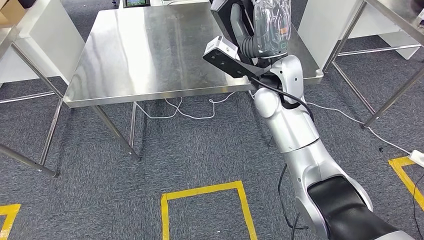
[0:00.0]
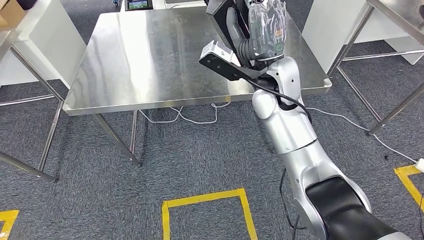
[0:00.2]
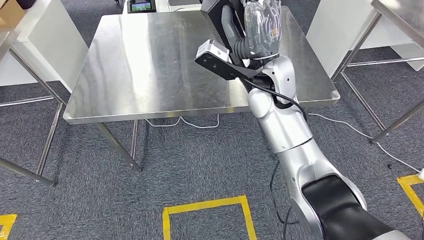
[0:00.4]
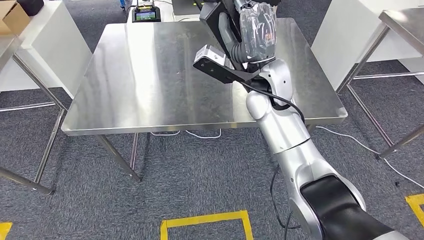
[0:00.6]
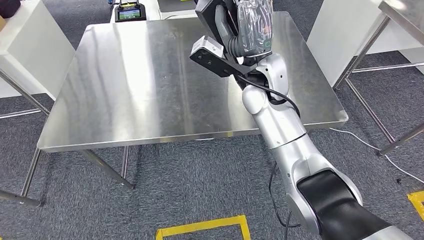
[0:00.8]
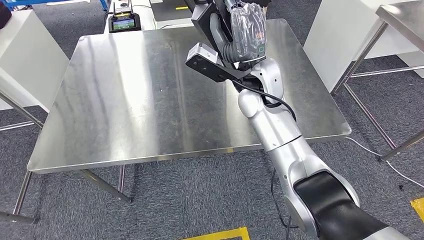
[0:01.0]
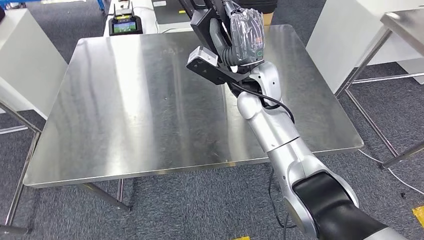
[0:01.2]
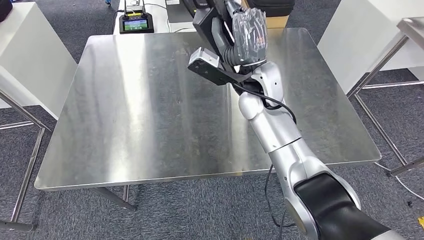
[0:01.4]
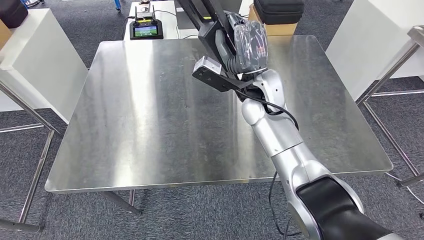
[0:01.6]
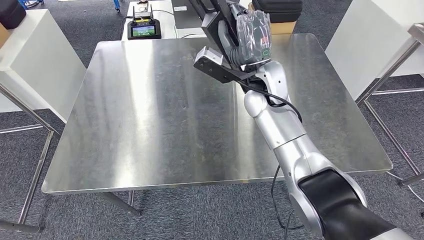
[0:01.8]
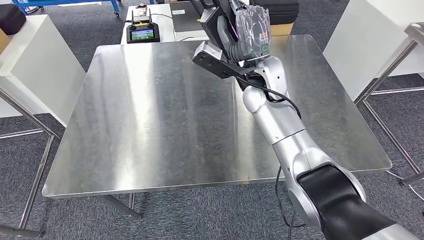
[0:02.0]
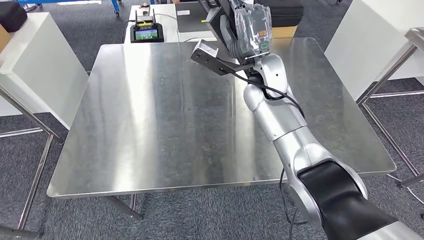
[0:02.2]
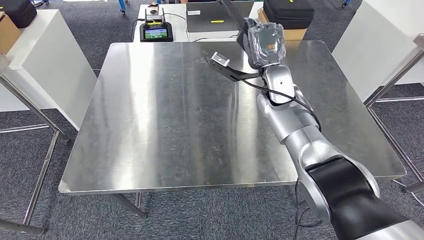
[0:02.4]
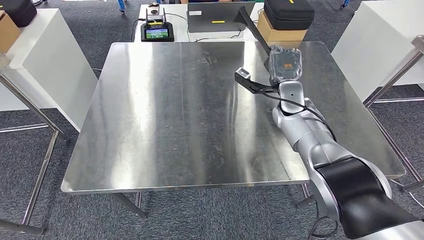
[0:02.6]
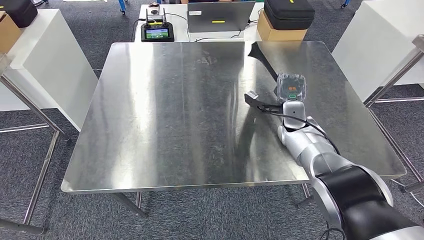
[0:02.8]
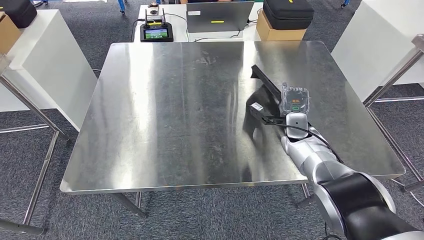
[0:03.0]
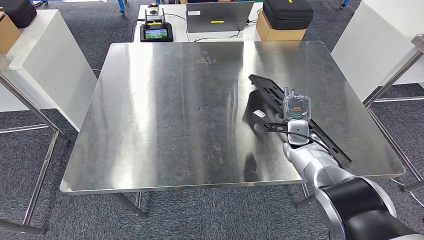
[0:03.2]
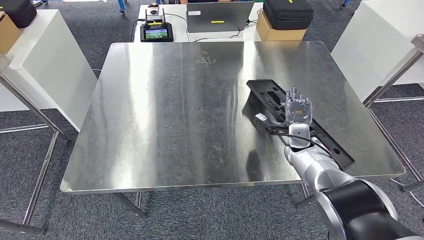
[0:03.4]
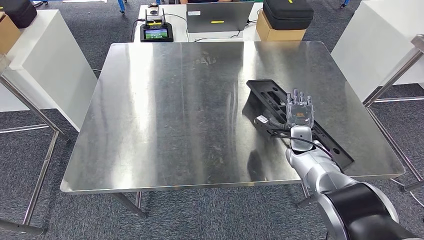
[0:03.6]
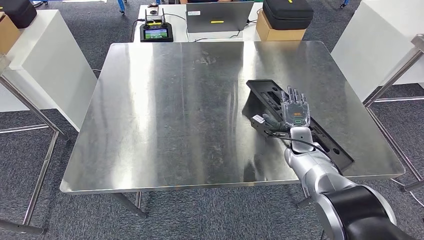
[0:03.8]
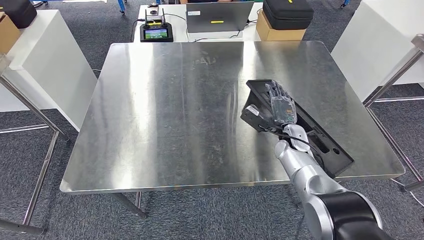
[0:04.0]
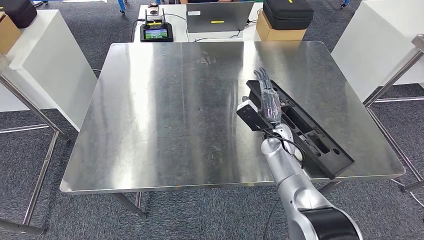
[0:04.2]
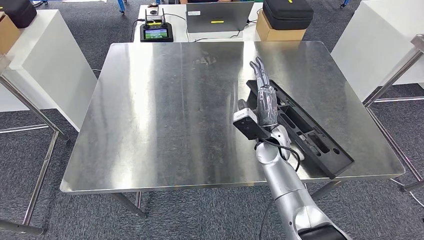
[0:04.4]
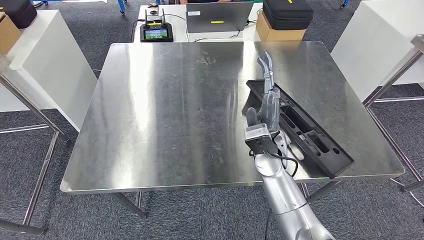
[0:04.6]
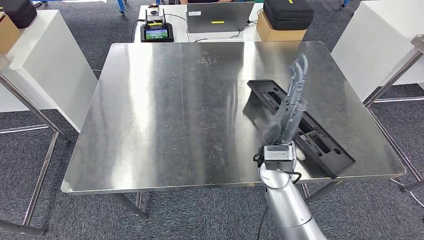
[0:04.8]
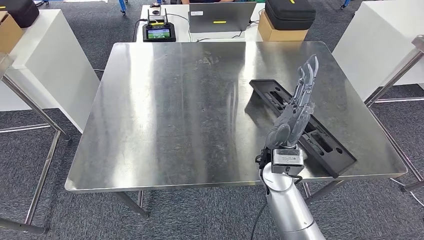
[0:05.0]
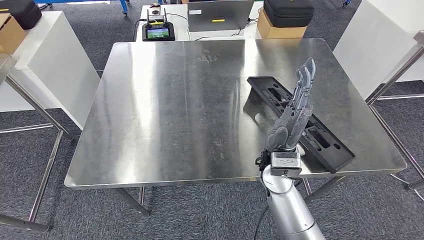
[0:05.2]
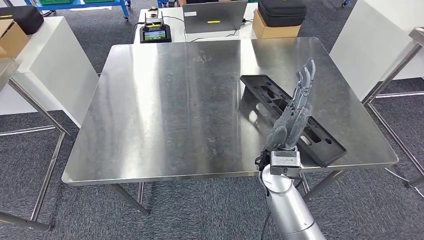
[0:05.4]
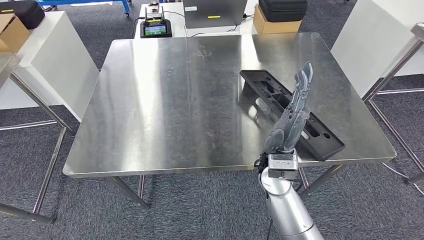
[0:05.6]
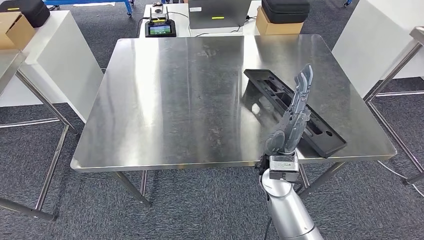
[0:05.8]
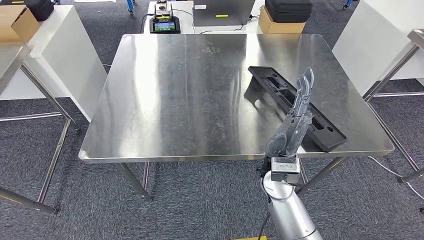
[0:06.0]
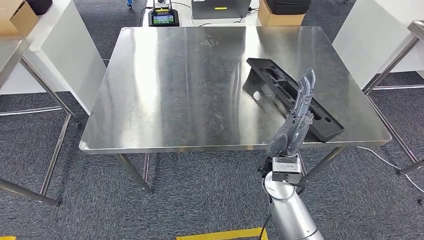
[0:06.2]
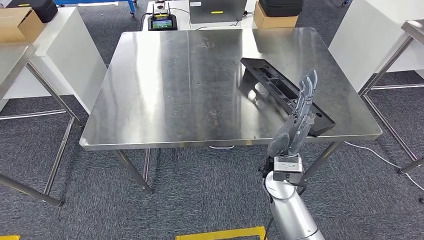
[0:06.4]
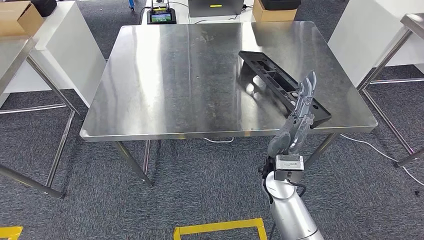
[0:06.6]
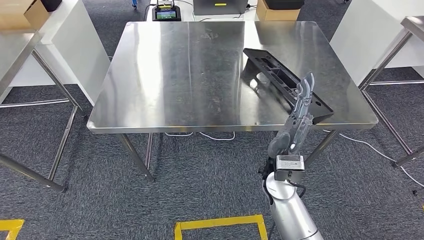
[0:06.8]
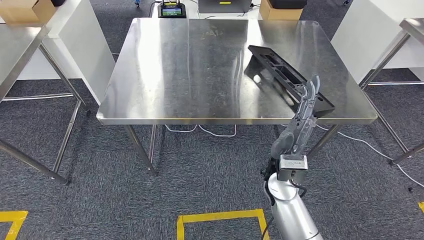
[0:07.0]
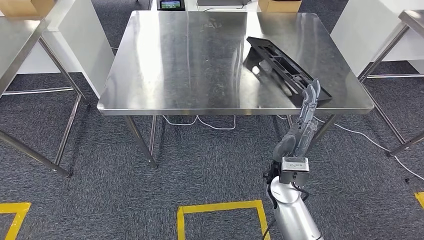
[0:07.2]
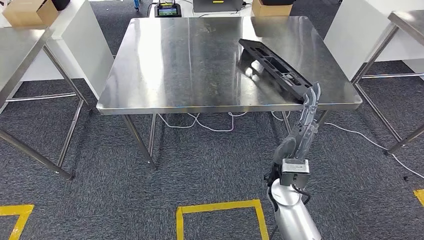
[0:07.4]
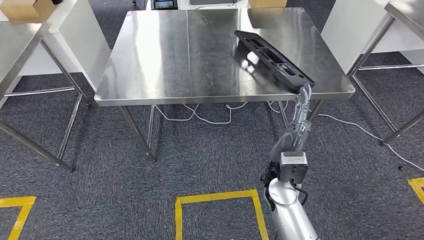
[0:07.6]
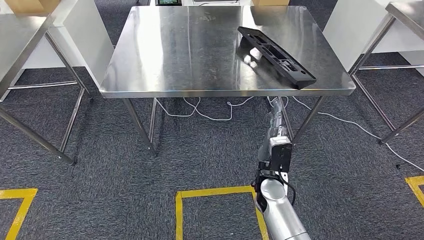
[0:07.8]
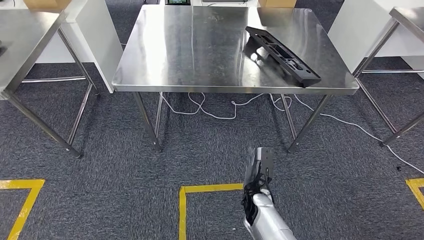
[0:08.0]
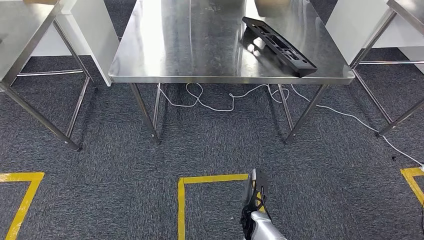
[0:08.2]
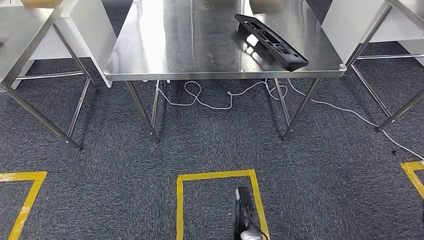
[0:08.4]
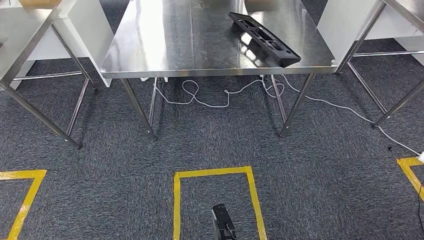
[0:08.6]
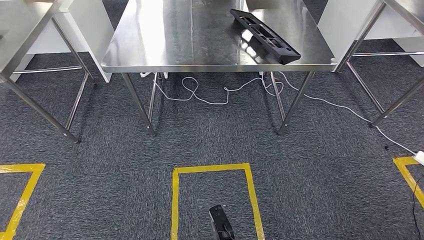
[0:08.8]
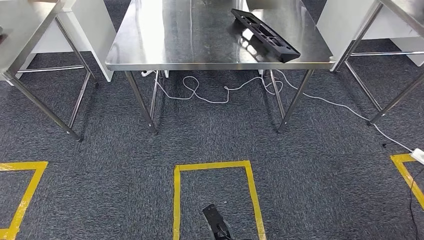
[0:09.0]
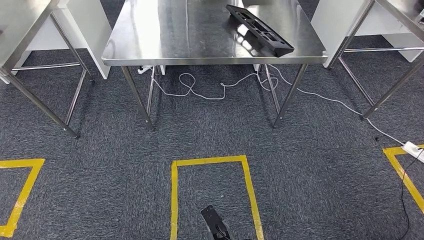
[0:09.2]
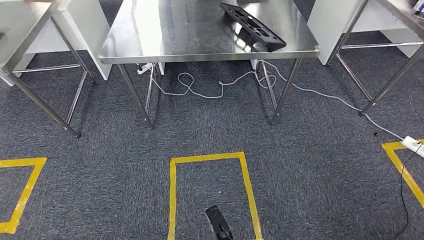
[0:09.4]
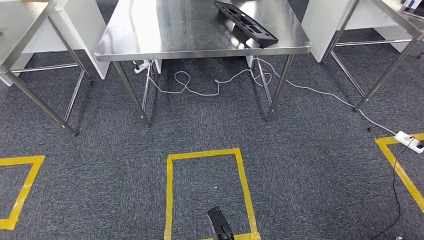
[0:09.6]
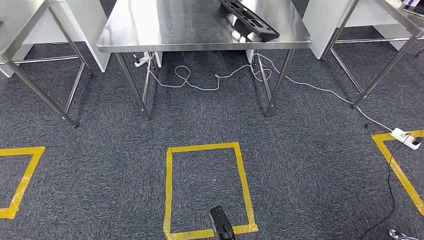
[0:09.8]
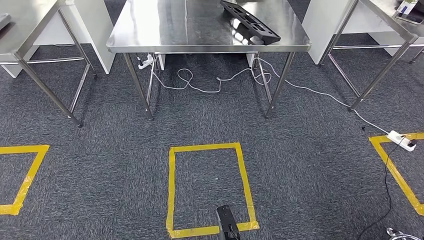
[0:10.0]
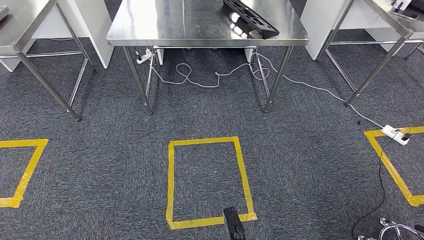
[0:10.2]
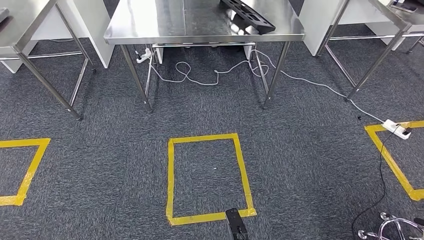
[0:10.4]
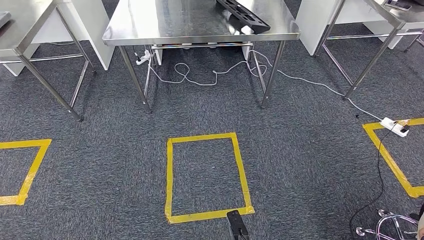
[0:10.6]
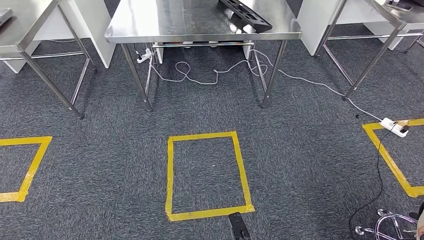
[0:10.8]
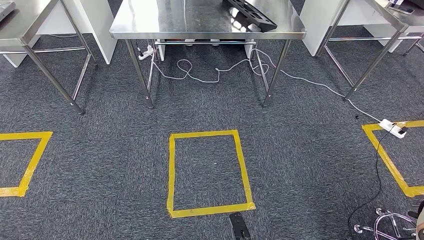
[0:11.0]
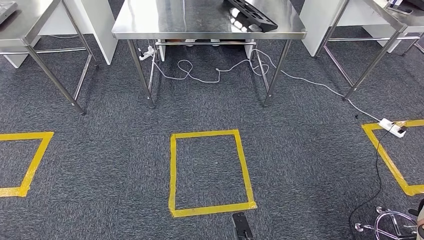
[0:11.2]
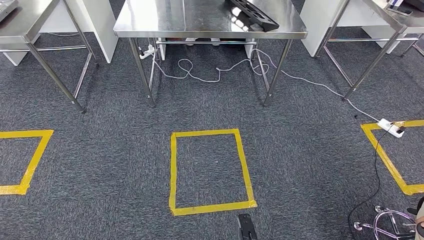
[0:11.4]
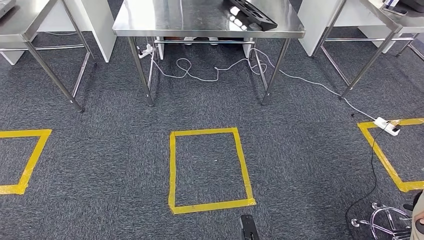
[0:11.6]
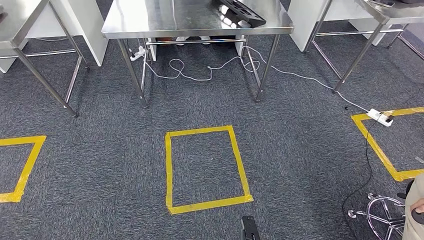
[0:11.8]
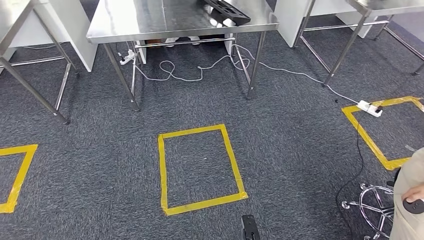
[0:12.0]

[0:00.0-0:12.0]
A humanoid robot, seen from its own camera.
Step, 0:00.0 to 0:08.8: Insert the large material into the corresponding slot on the workbench.
0:03.0 to 0:04.4: The right hand goes some 10 cm to the left.

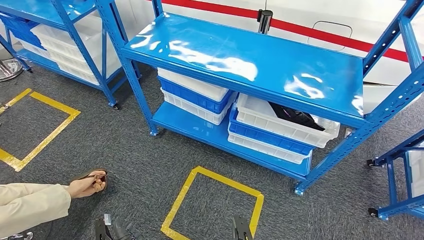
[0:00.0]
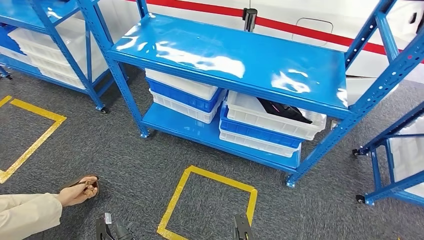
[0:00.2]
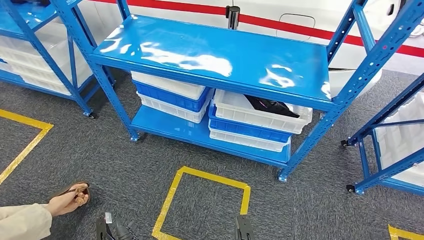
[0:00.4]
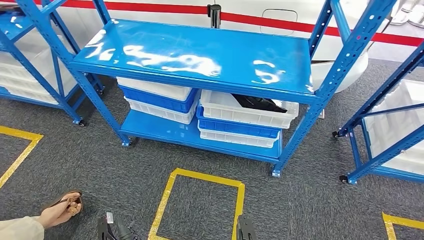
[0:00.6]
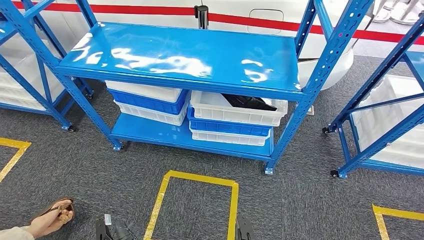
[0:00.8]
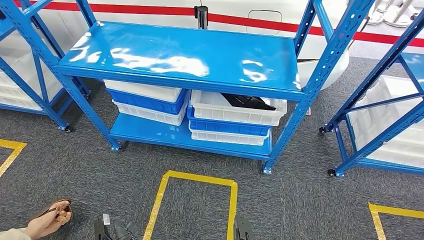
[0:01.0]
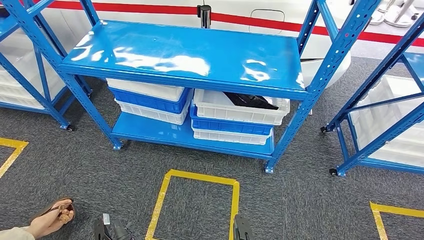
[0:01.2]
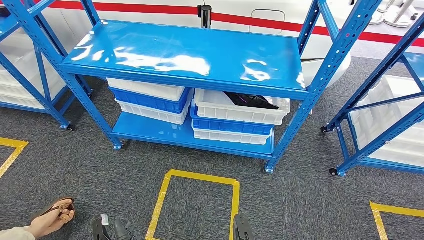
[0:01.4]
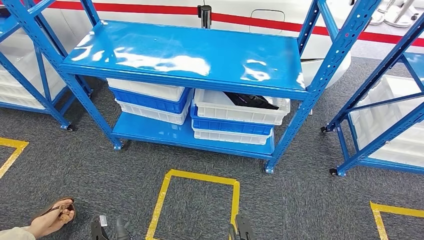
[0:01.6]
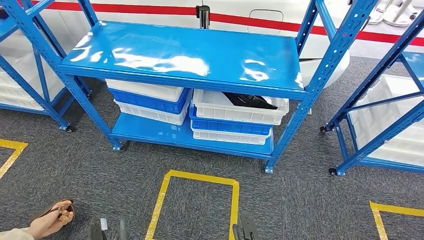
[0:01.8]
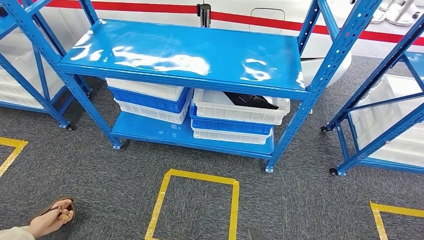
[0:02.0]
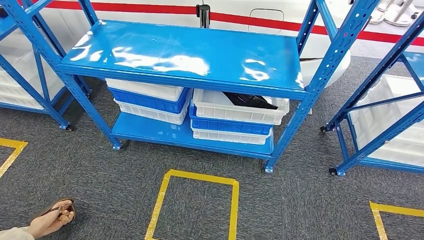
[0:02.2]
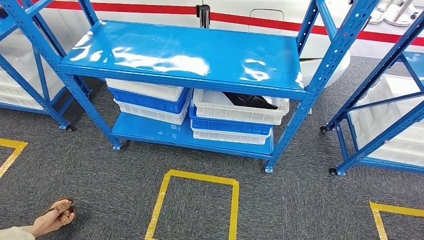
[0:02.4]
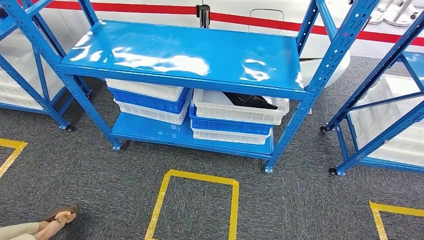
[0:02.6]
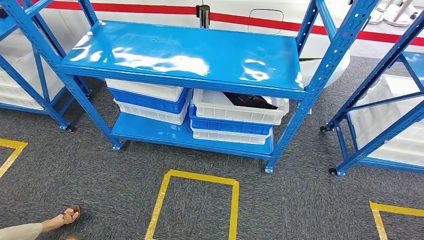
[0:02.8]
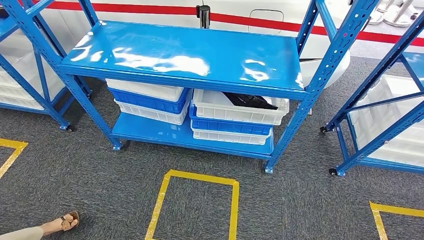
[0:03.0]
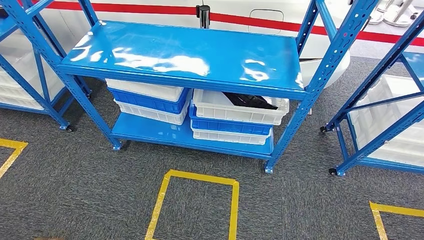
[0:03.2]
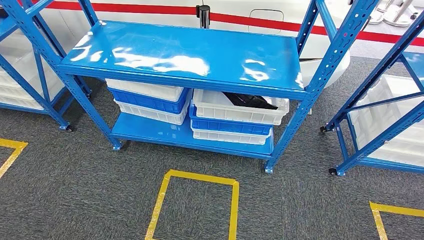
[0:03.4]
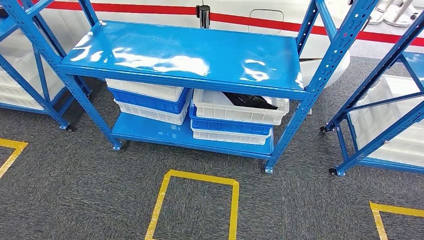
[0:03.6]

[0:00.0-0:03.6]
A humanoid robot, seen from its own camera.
Step, 0:00.0 to 0:03.6: Move to the initial position of the shelf.
0:01.8 to 0:03.6: The left hand travels backward and to the left by roughly 20 cm; the right hand moves to the right and backward, roughly 15 cm.
